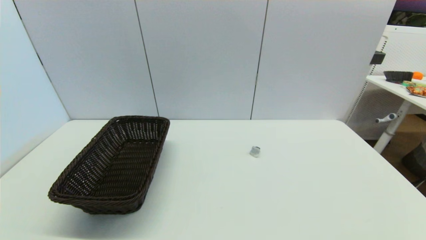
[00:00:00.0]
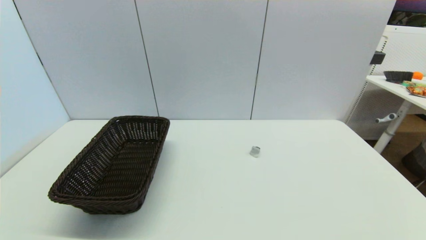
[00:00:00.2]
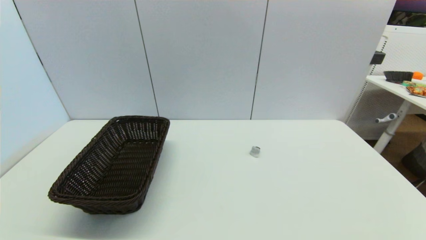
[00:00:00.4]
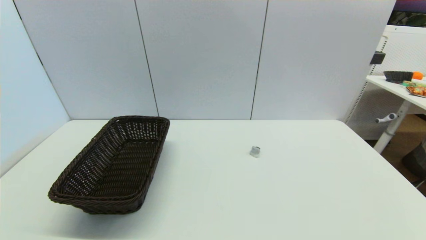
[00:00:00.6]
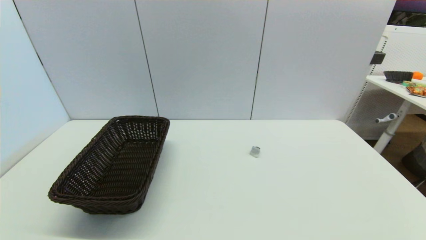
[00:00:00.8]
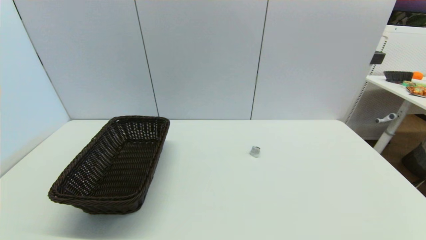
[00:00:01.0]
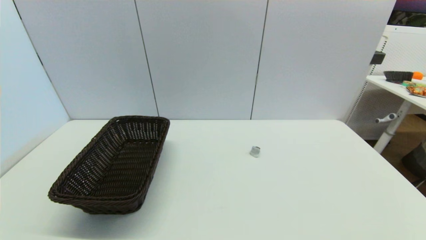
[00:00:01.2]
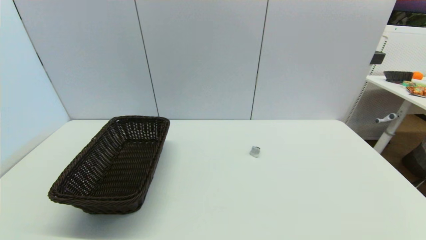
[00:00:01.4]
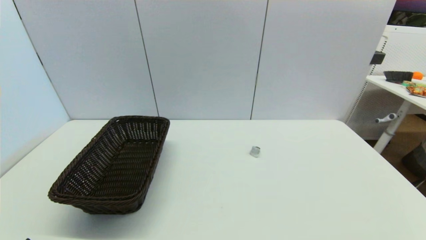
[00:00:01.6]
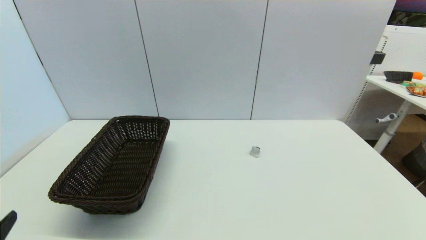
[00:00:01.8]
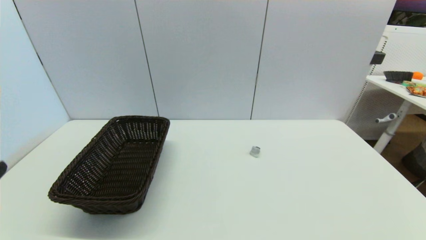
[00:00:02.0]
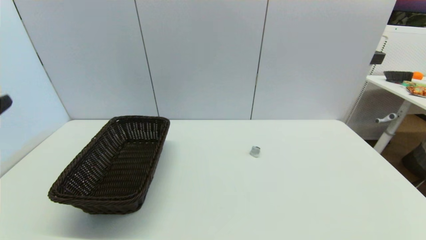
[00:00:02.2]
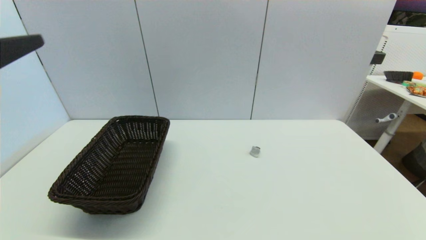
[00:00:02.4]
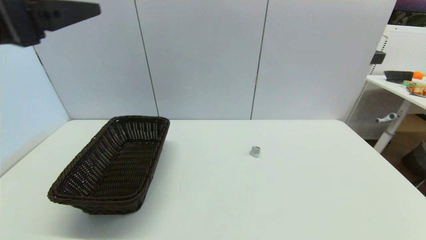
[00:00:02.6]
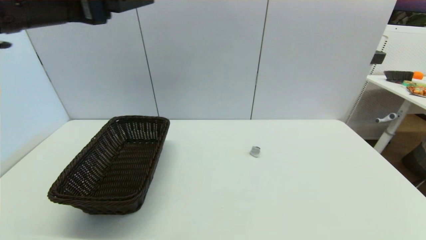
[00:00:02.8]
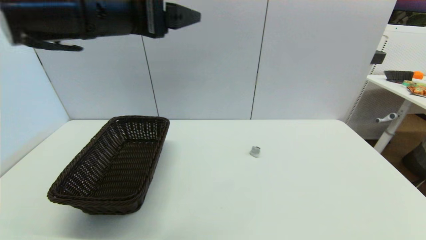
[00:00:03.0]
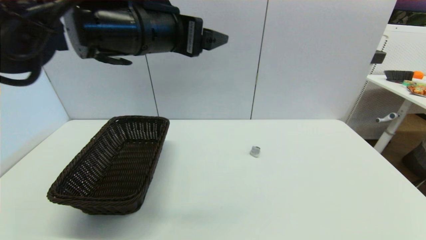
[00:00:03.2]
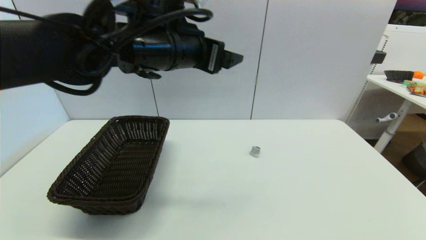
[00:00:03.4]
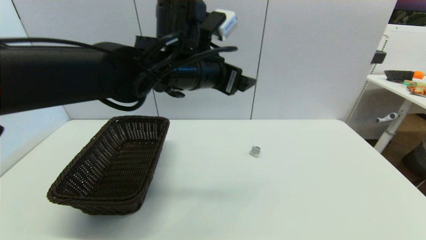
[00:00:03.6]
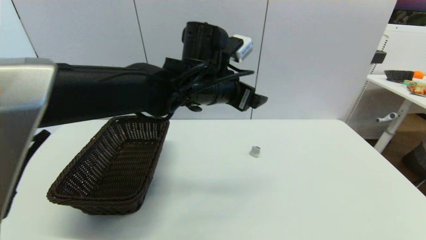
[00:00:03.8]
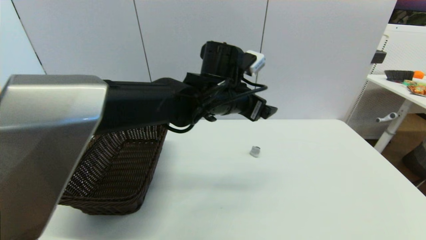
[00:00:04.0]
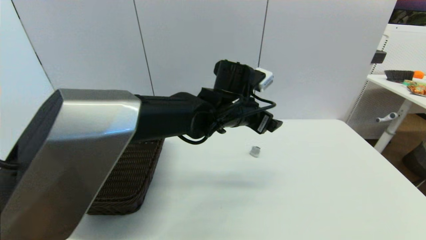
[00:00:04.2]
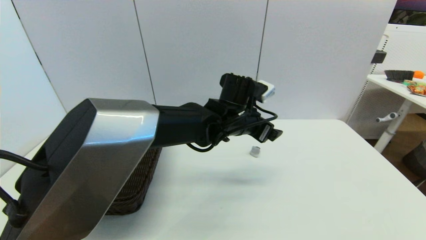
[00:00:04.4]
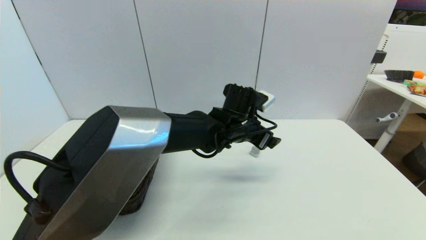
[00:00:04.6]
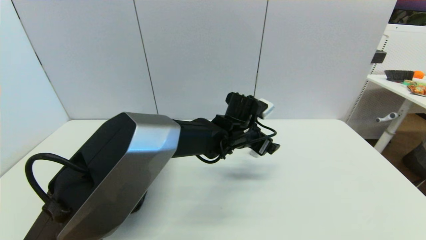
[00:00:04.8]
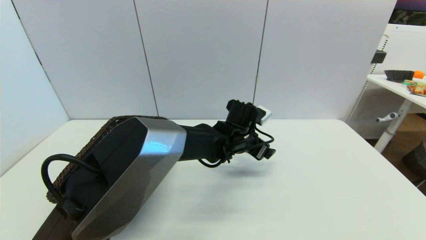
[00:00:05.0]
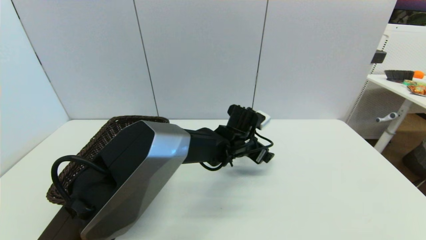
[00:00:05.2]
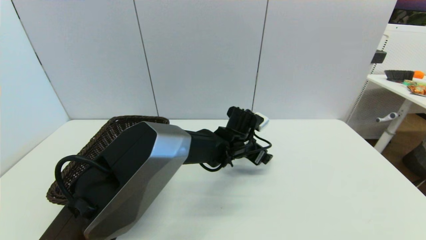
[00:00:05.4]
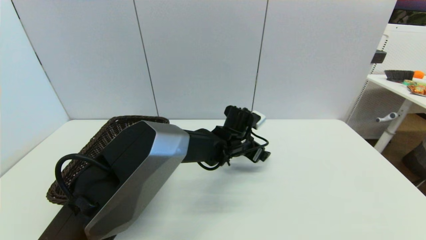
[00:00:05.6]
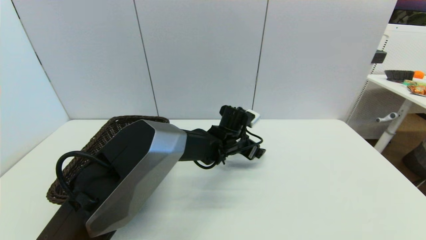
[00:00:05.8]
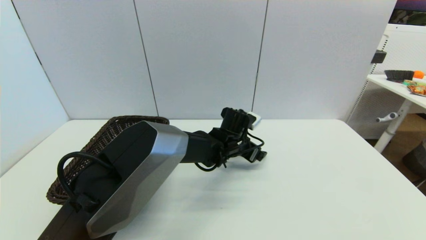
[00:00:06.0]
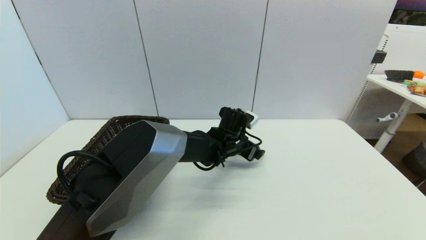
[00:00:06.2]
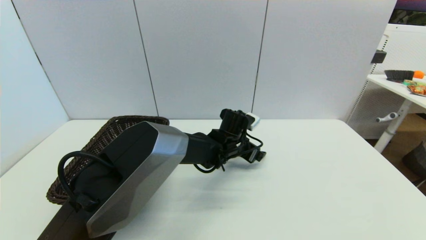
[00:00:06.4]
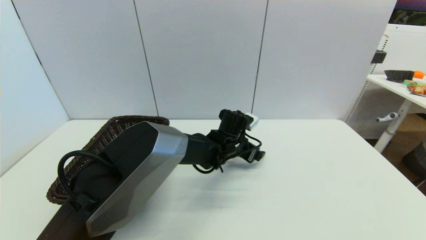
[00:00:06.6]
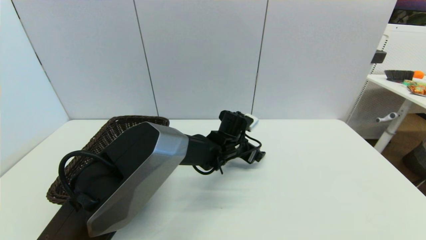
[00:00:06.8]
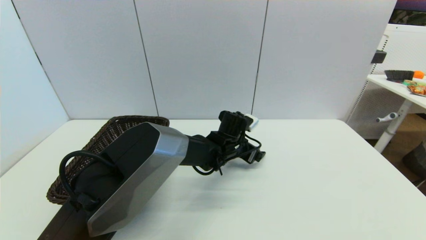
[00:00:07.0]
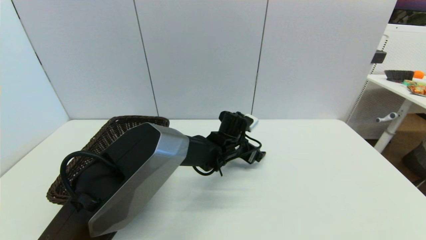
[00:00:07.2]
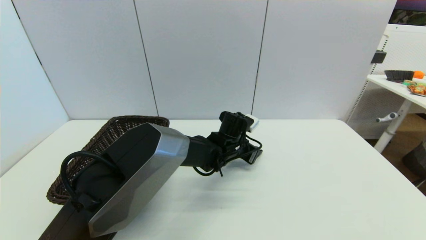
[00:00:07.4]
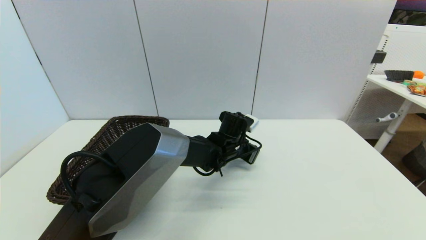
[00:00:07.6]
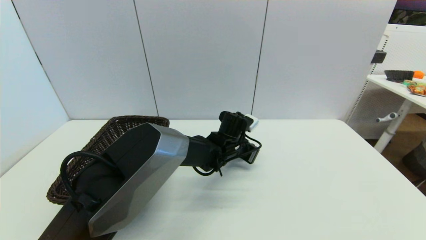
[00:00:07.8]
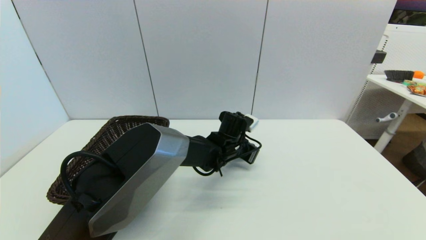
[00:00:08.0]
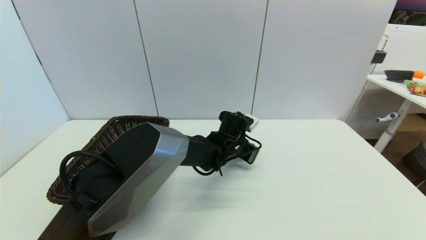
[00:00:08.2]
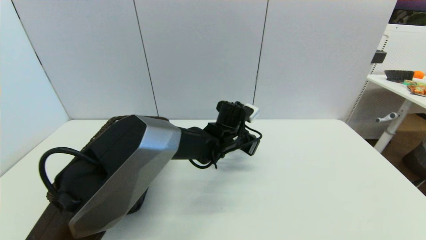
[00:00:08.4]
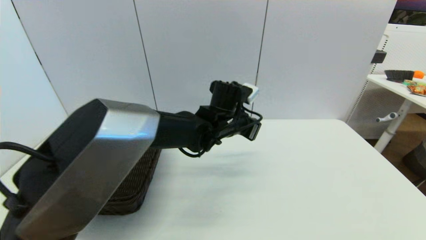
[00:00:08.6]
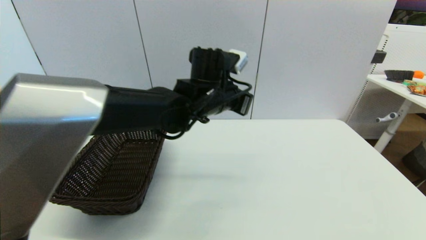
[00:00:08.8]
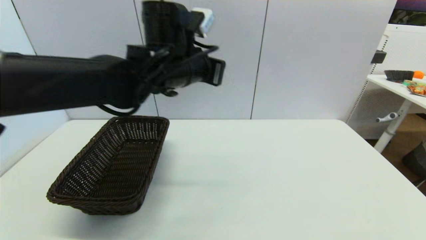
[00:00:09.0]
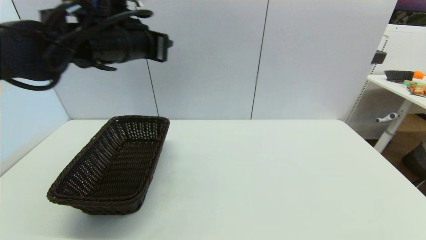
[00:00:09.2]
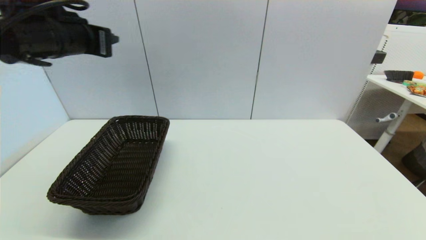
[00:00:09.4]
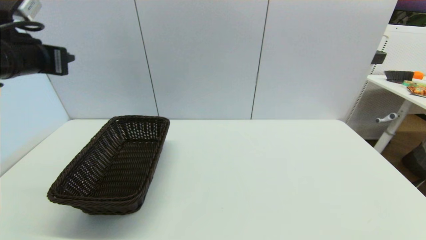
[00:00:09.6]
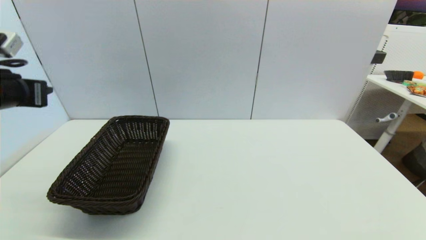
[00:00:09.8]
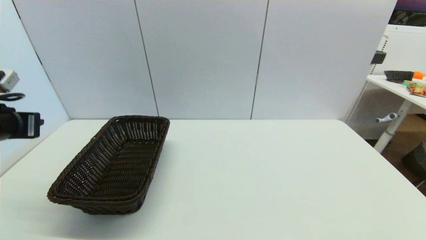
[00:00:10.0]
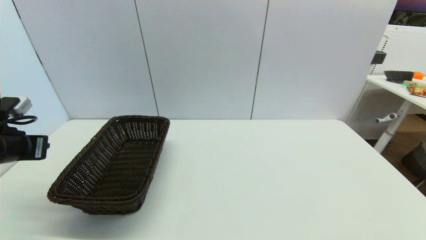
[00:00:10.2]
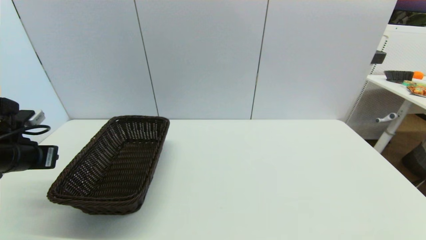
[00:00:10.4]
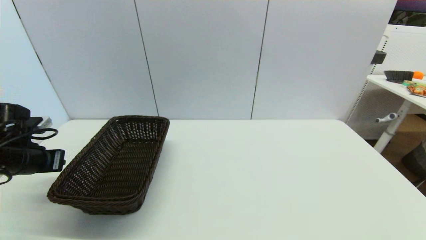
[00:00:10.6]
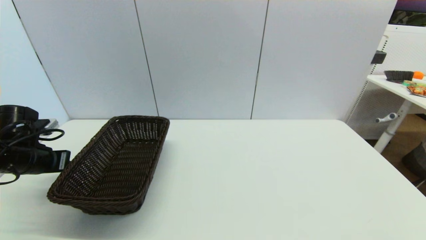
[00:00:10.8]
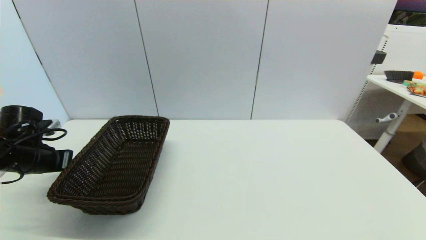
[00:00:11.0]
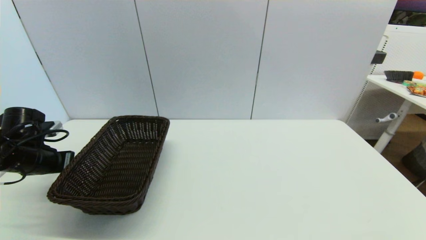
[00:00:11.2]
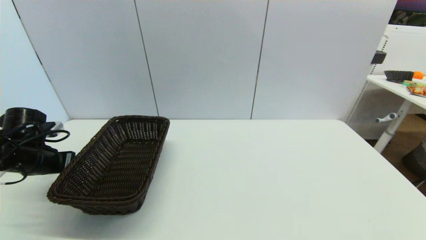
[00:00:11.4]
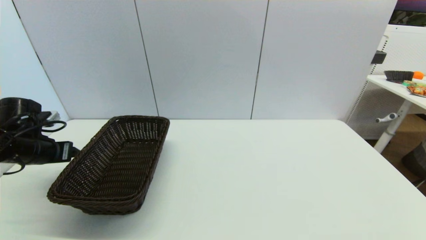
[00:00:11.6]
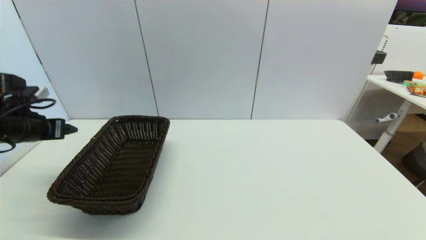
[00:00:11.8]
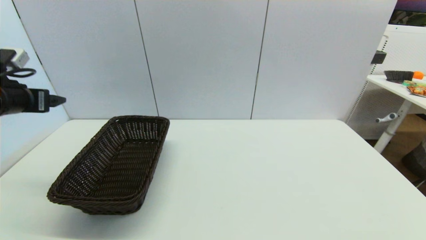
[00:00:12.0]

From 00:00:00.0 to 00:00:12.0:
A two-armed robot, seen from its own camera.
Step, from 00:00:01.8 to 00:00:08.2: Grasp the coffee capsule with left gripper.
Step, from 00:00:08.4 to 00:00:11.4: Place the coffee capsule on the table with left gripper.
From 00:00:01.6 to 00:00:03.0: The left gripper moves upward, forward and to the right, about 40 cm.
From 00:00:03.0 to 00:00:04.4: The left gripper heads downward, to the right and forward, covering roughly 30 cm.
From 00:00:04.4 to 00:00:06.0: The left gripper shifts some 10 cm downward.
From 00:00:06.0 to 00:00:07.6: The left gripper closes.
From 00:00:07.6 to 00:00:09.0: The left gripper heads upward and to the left, covering some 25 cm.
From 00:00:09.0 to 00:00:10.4: The left gripper heads to the left and downward, covering some 35 cm.
From 00:00:10.4 to 00:00:12.0: The left gripper goes some 10 cm upward, and opens up.

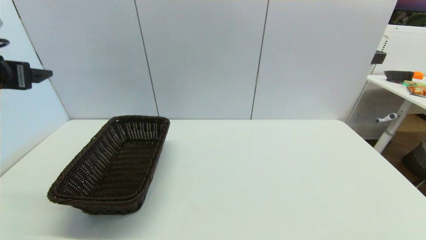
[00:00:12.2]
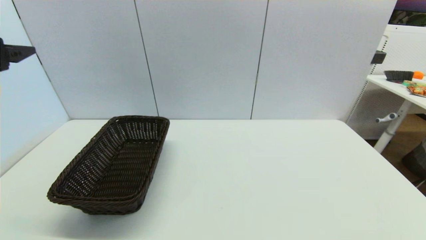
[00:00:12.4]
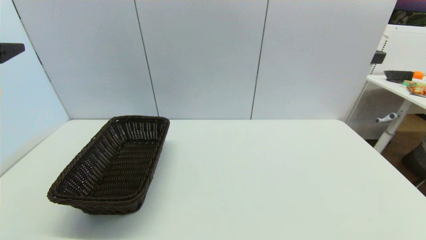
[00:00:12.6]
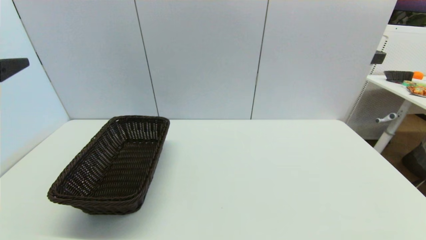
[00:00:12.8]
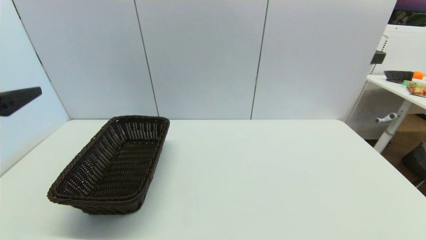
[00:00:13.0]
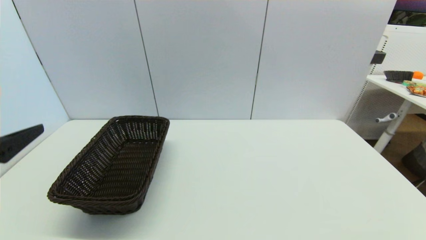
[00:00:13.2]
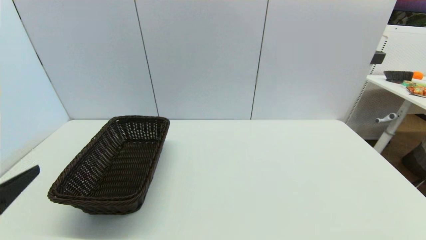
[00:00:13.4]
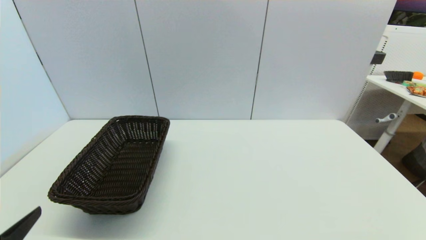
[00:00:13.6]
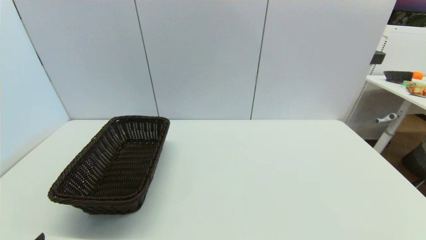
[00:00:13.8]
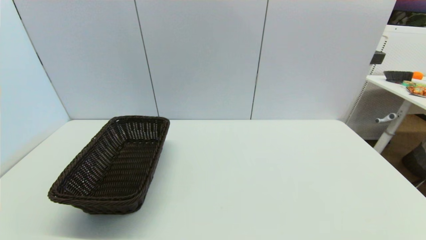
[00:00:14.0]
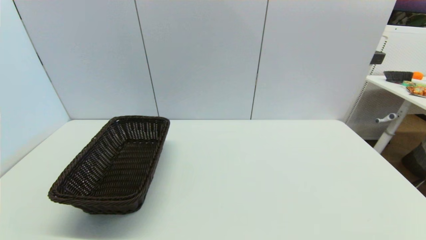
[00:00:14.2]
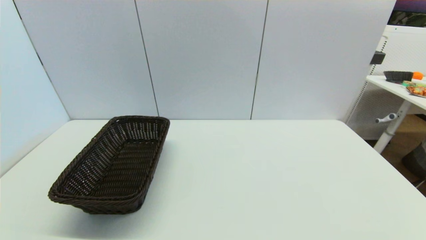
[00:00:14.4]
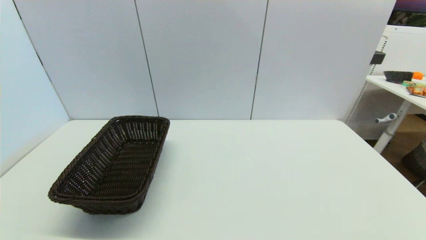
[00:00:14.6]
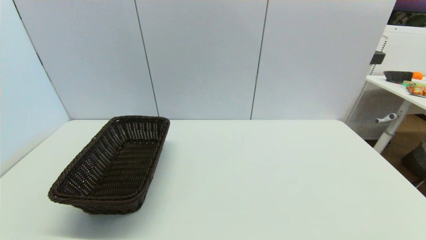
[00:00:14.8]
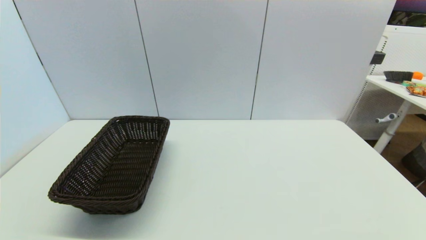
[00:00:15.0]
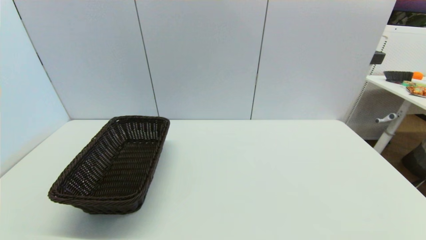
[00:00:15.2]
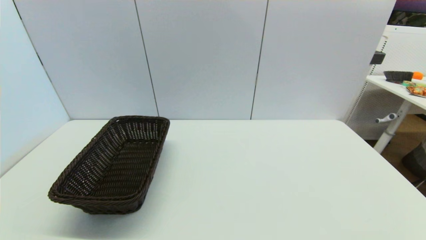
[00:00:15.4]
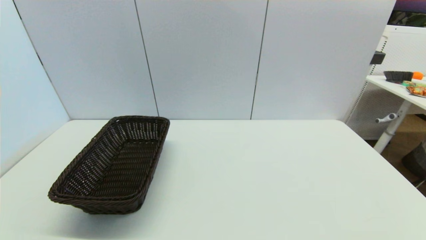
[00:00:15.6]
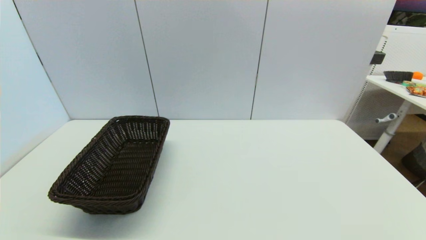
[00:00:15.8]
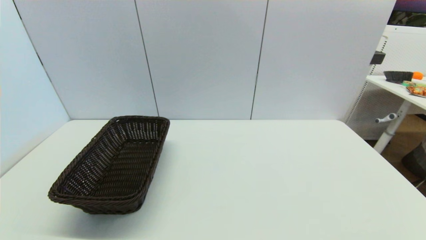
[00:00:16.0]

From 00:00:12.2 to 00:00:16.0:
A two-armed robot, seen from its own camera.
From 00:00:12.2 to 00:00:13.4: The left gripper shifts about 20 cm backward and downward.
From 00:00:13.4 to 00:00:14.8: The left gripper travels downward and backward by some 15 cm.
From 00:00:14.8 to 00:00:16.0: Neither gripper changes place.
